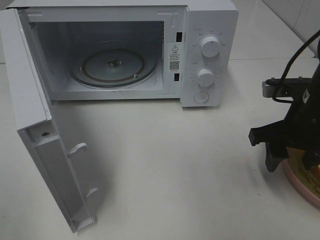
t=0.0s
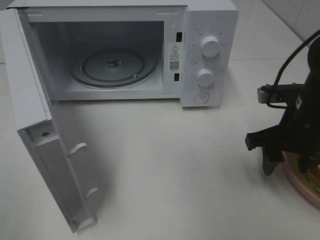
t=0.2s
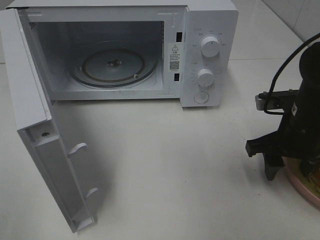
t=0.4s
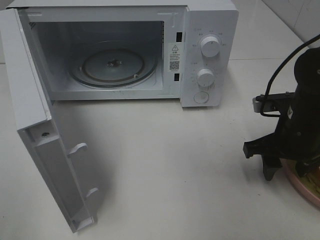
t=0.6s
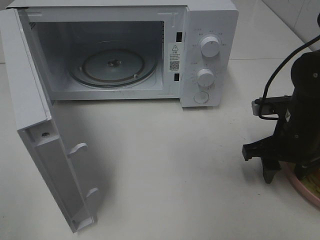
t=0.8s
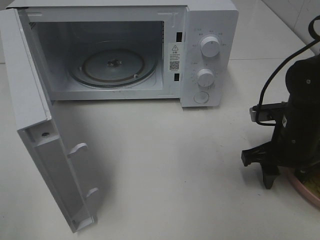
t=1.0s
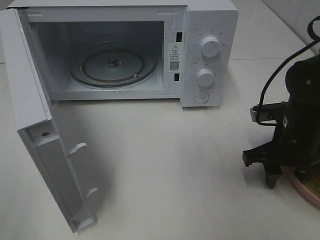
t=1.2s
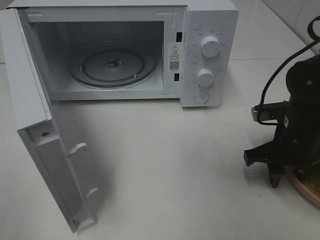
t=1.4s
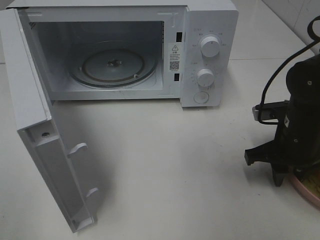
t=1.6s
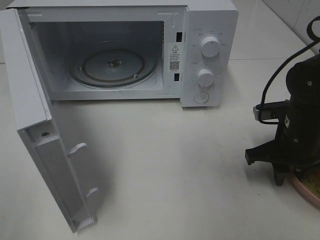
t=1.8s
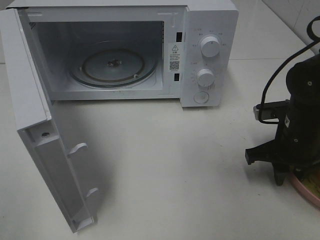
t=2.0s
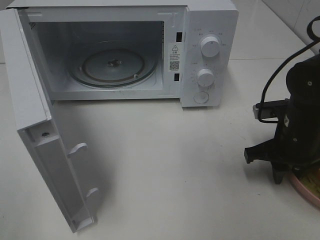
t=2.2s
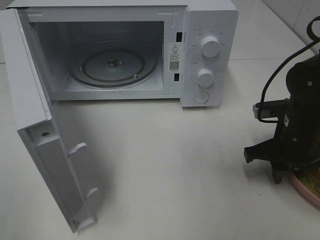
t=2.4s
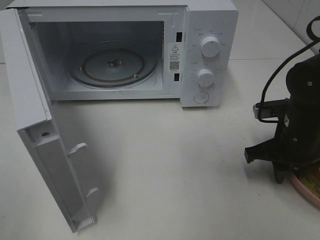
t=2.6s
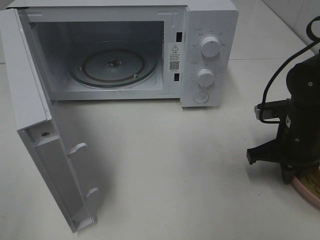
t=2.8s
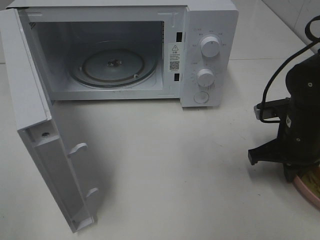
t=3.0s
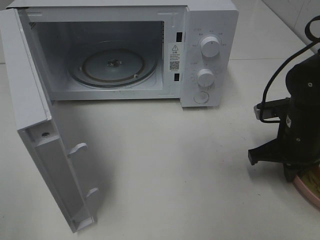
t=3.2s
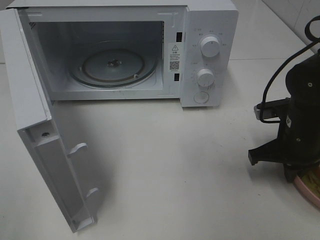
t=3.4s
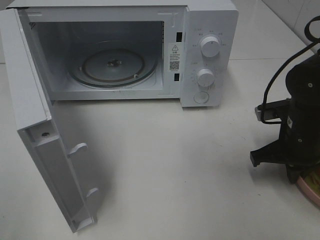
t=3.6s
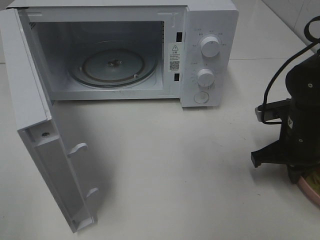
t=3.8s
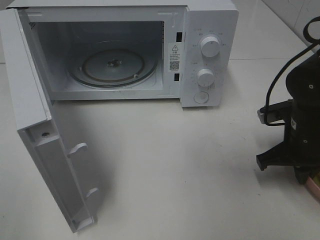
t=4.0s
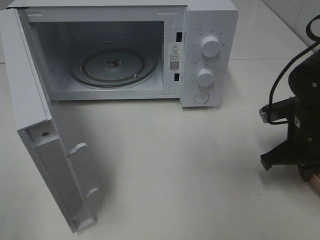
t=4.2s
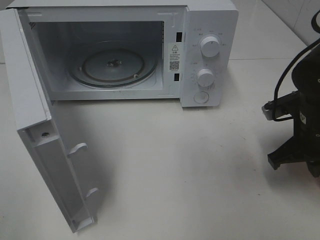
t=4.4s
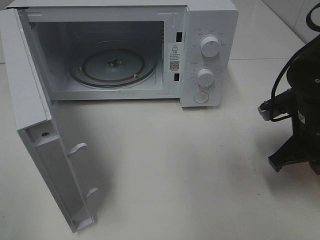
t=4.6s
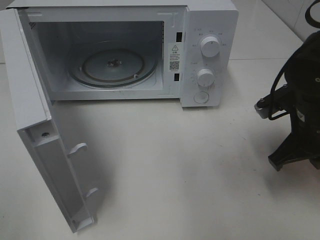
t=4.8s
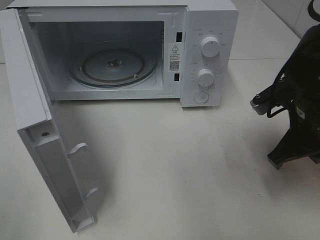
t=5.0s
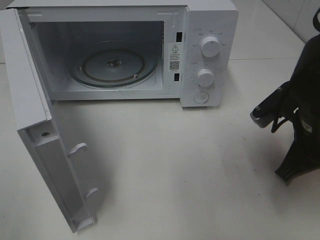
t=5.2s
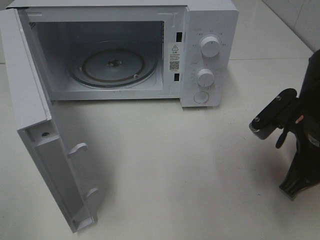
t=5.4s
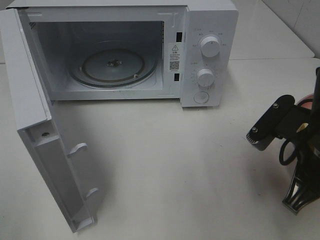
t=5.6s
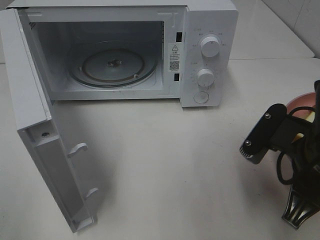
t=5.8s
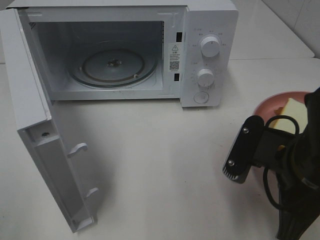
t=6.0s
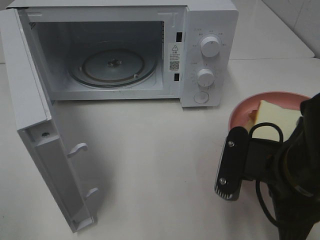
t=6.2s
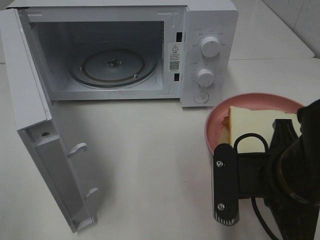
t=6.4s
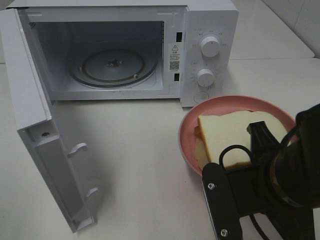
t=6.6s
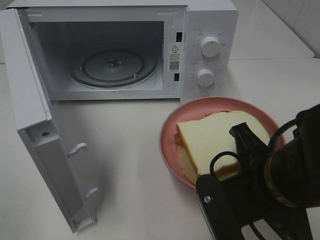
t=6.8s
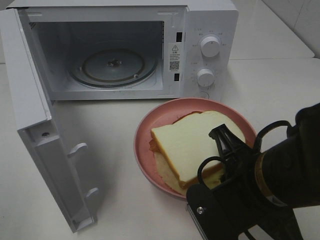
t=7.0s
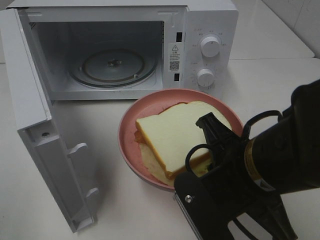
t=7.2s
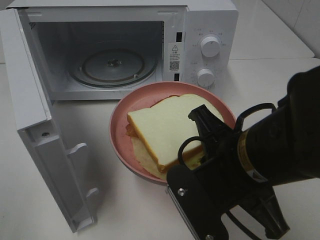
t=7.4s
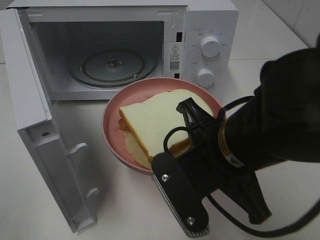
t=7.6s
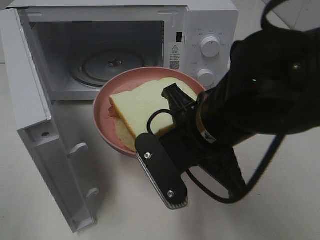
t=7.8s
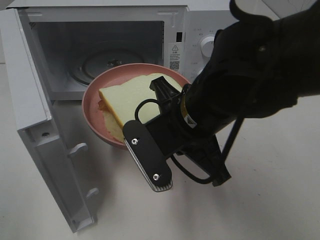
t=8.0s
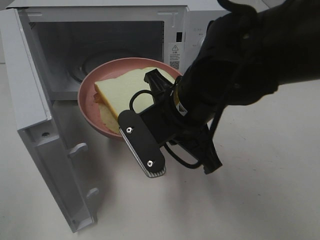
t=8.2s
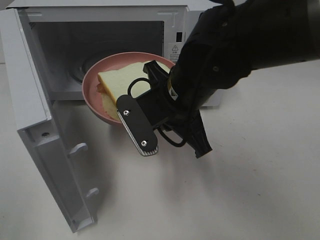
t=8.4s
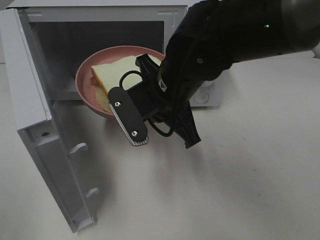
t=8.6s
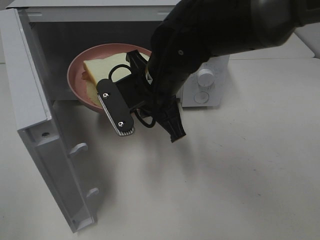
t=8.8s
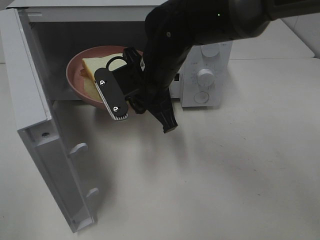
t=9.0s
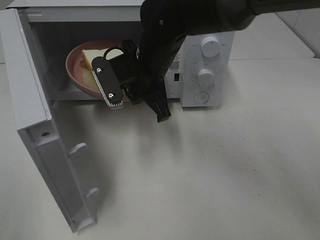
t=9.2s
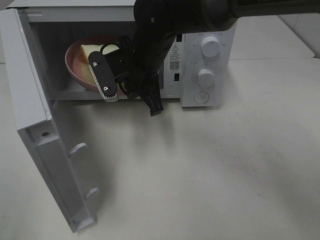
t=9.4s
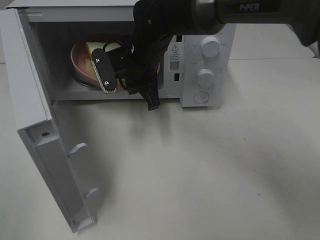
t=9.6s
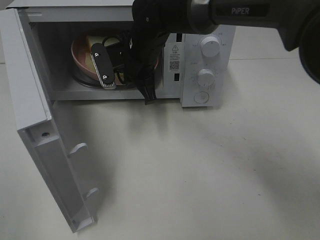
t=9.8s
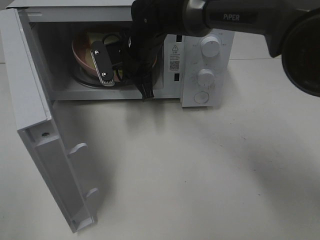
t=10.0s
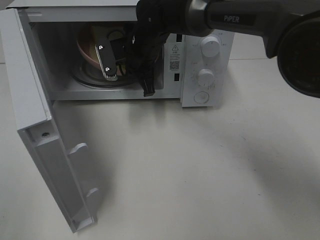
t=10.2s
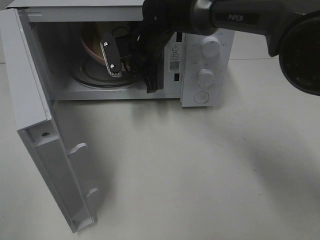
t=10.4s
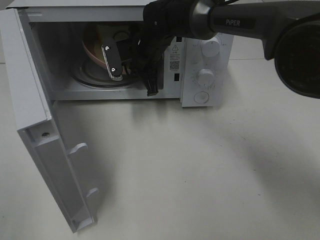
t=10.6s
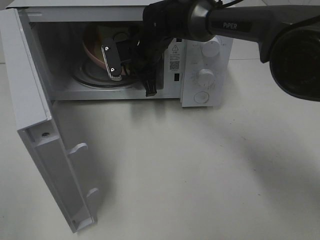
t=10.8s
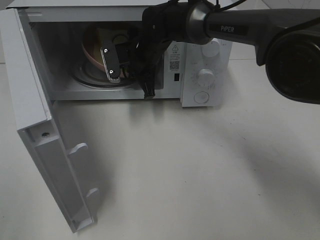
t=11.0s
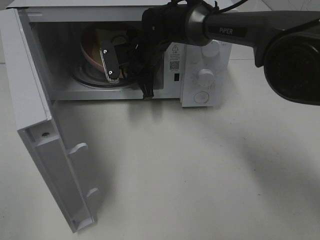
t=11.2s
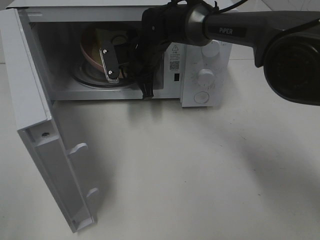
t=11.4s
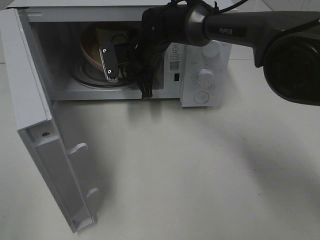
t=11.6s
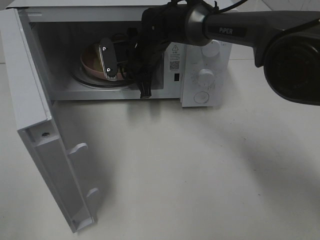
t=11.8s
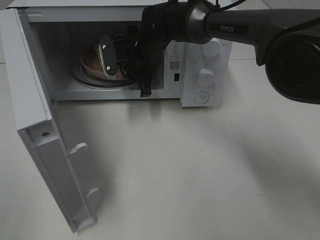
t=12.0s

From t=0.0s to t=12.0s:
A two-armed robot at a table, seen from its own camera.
Task of the whole recording: Heat Sandwich.
Step, from t=0.0s to t=3.4s: Right hand: grab the plate with the sandwich.
From t=0.0s to t=1.6s: The right gripper heads downward, covering about 5 cm.
From t=1.6s to t=3.0s: The right gripper closes its fingers.
From t=3.0s to t=4.4s: The grippers stay close to where they were, moving slightly.
From t=4.4s to t=6.0s: The right gripper moves backward and to the left, roughly 15 cm.
From t=6.0s to t=7.6s: The right gripper is displaced to the left by approximately 10 cm.
From t=7.6s to t=9.0s: The right gripper travels forward and to the left by about 20 cm.
From t=9.0s to t=10.4s: The right gripper moves forward, roughly 15 cm.
From t=10.4s to t=12.0s: The right gripper opens.

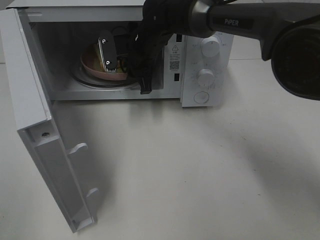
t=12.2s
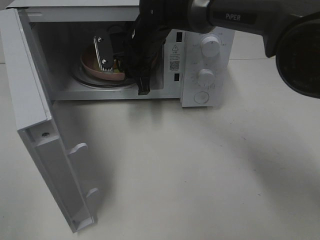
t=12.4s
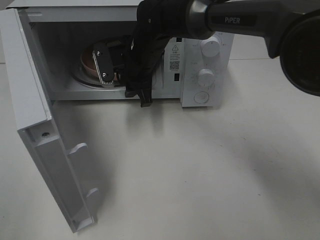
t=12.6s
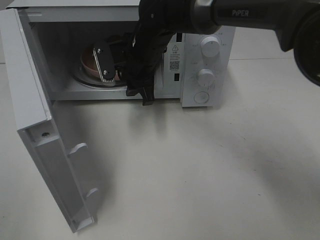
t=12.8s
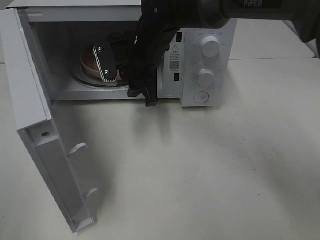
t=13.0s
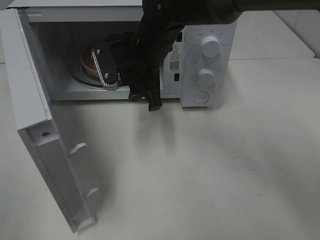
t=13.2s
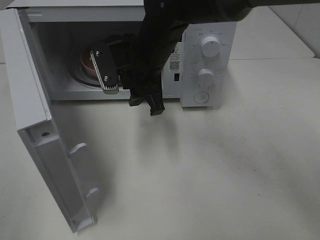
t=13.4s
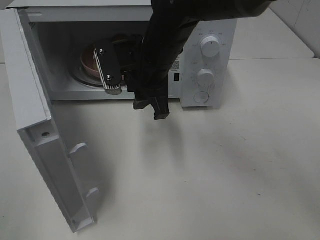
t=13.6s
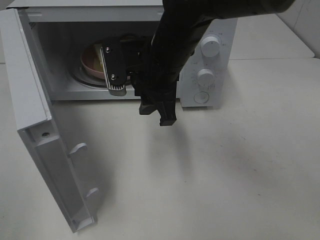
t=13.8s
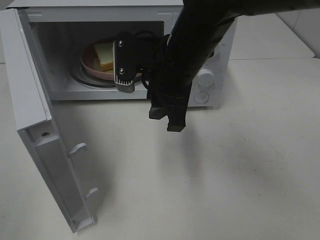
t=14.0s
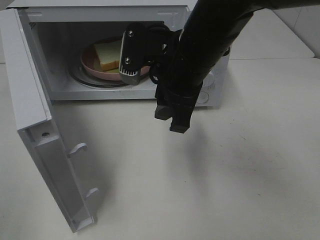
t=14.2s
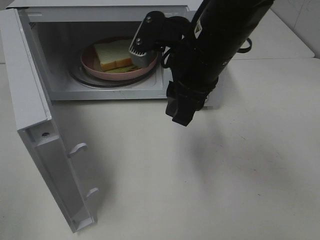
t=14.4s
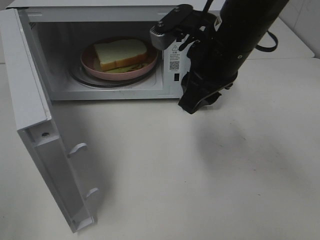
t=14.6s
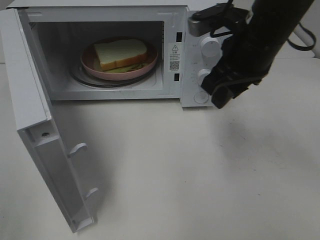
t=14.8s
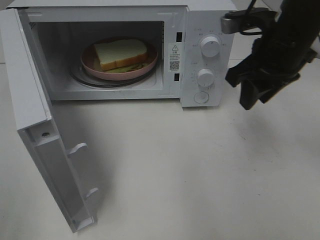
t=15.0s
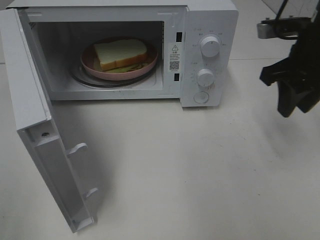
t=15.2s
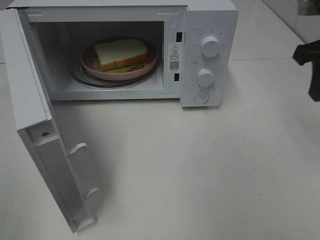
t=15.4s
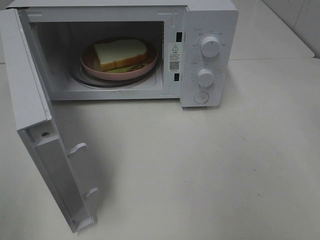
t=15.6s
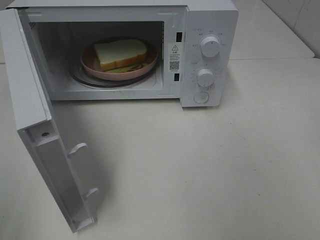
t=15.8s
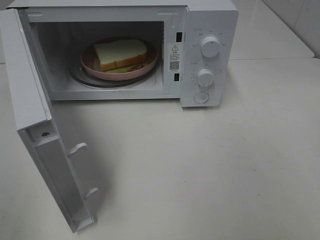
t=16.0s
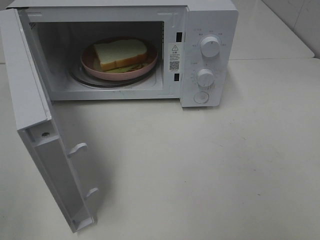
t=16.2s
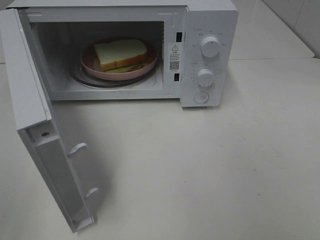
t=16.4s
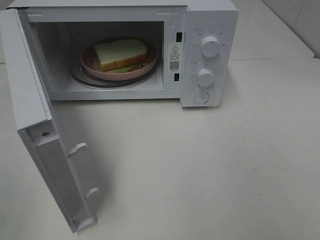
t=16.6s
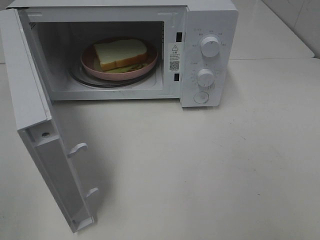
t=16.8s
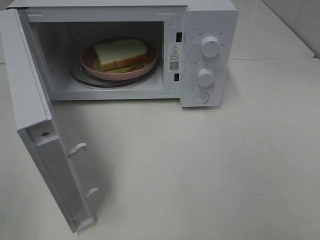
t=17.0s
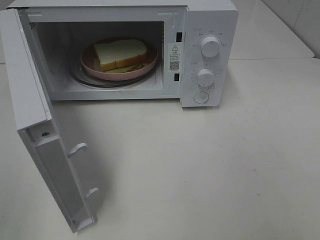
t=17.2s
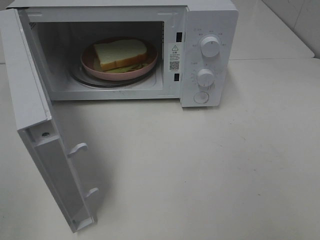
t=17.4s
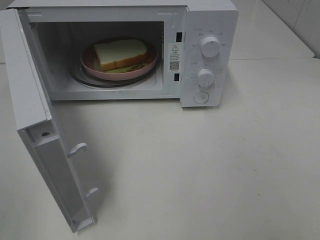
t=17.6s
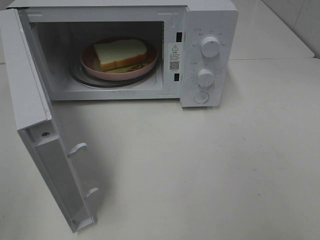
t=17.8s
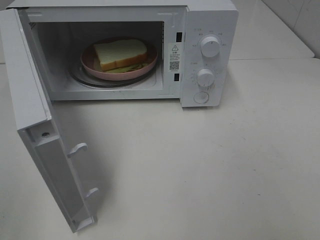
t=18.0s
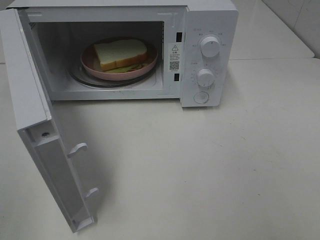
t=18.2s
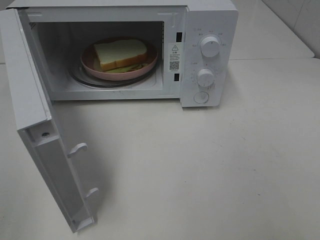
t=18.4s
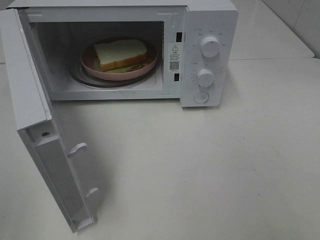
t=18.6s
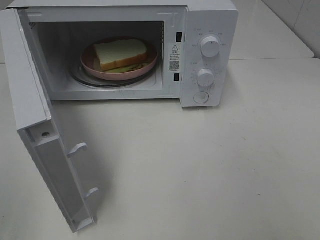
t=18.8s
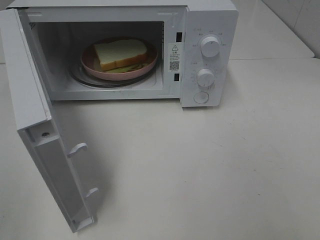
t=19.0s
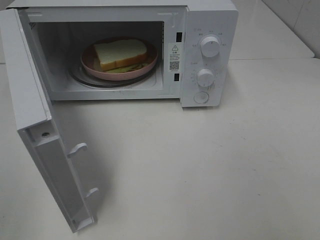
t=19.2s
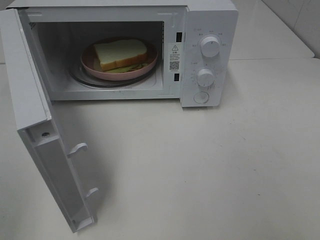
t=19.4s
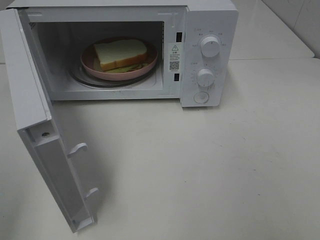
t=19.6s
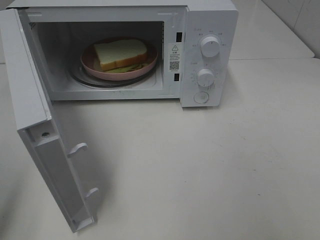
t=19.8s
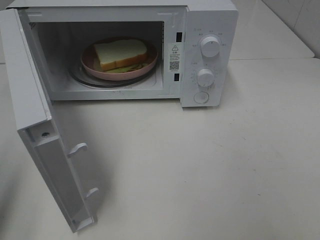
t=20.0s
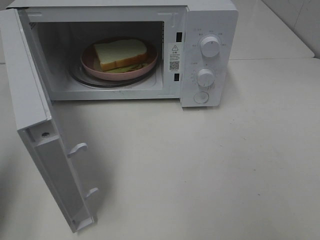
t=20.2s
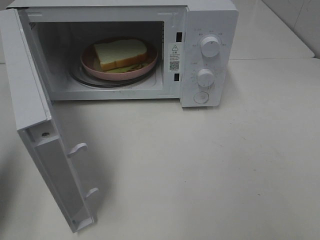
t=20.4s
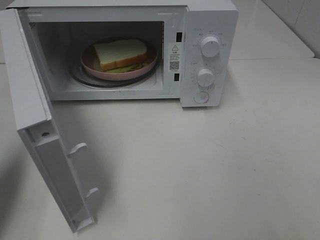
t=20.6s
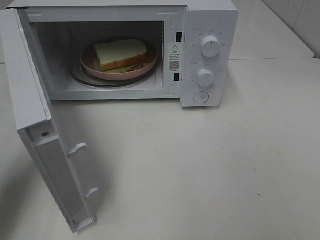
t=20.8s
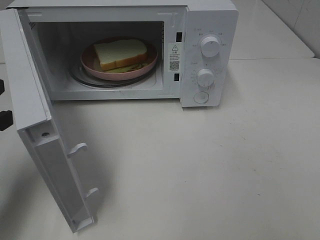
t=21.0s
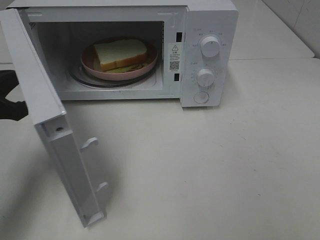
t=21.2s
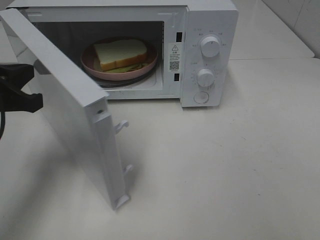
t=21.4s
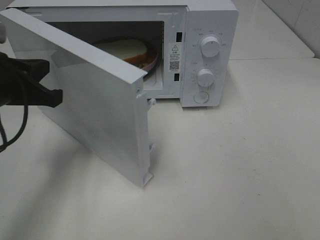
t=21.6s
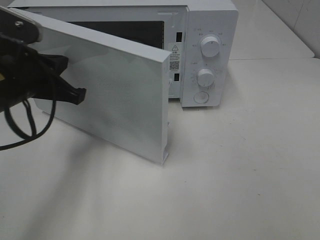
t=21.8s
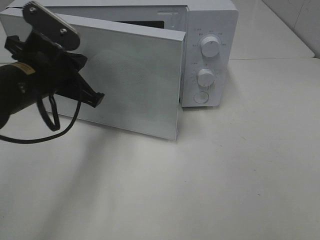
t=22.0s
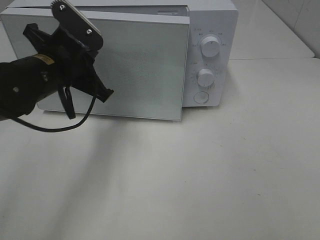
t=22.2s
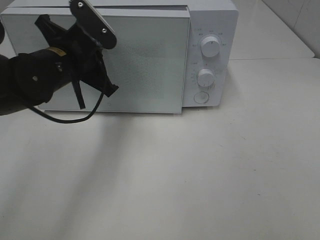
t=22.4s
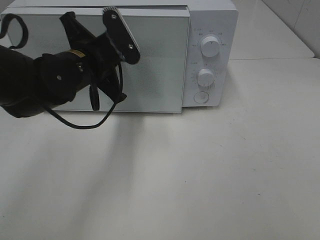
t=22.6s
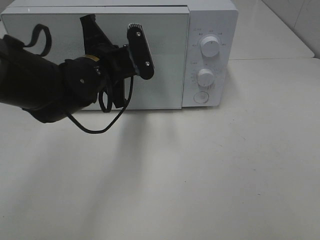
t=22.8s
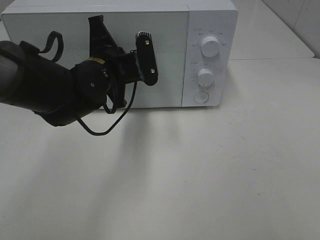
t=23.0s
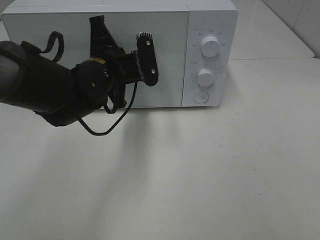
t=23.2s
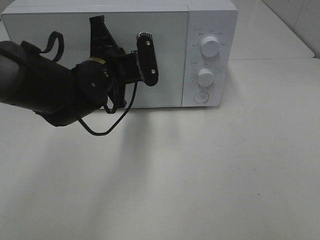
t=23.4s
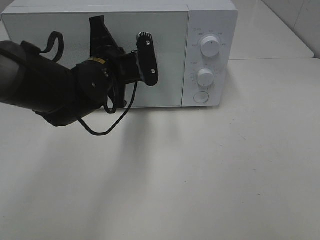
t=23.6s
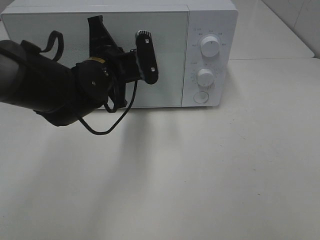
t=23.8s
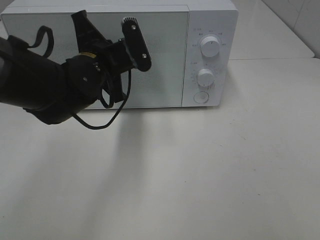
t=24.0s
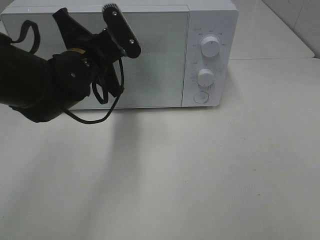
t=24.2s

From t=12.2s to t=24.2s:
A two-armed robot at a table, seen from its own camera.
Task of the whole recording: Heat Sandwich.
From t=12.2s to t=13.8s: The right gripper is displaced backward by approximately 15 cm.
From t=13.8s to t=15.2s: The right gripper travels to the right by approximately 20 cm.
From t=15.2s to t=16.6s: The right gripper moves backward, approximately 30 cm.
From t=19.8s to t=21.2s: The left gripper travels forward, to the right and downward by roughly 20 cm, and closes up.
From t=21.2s to t=22.6s: The left gripper travels to the right and forward by roughly 20 cm.
From t=22.6s to t=24.2s: The grippers make only small movements.
